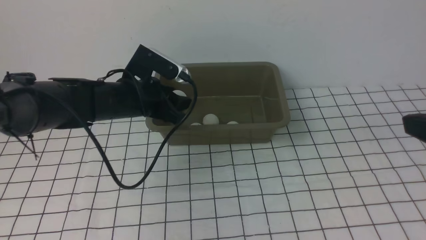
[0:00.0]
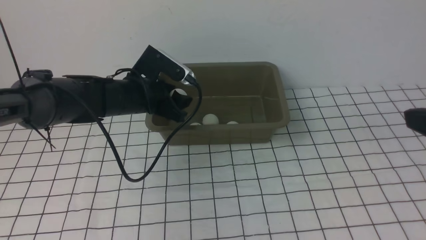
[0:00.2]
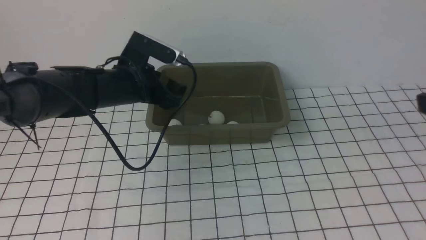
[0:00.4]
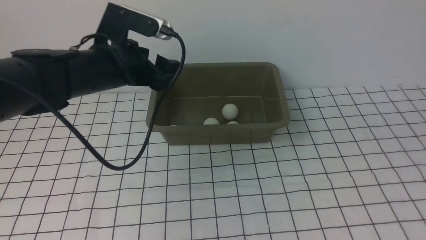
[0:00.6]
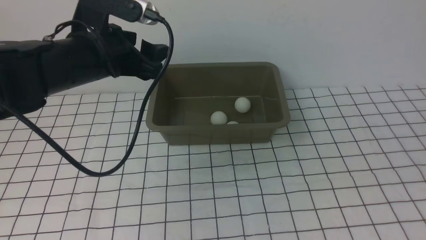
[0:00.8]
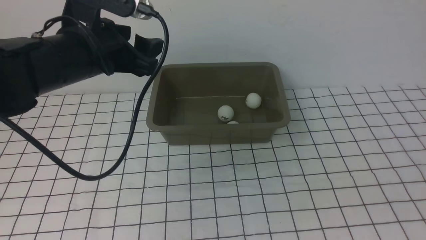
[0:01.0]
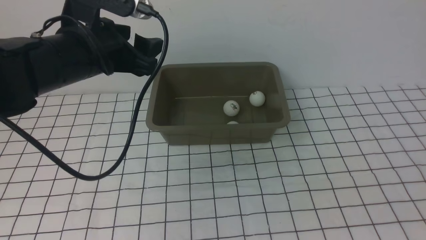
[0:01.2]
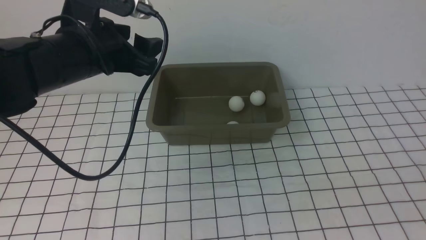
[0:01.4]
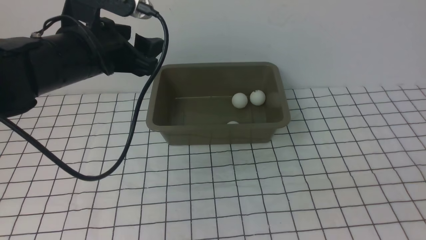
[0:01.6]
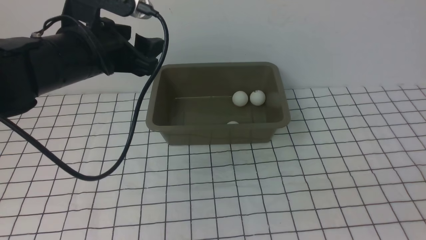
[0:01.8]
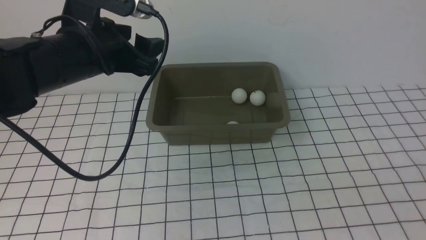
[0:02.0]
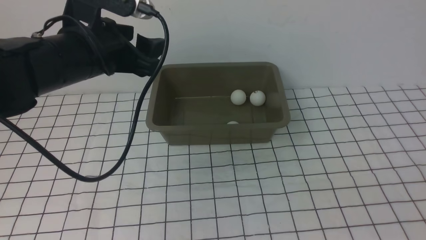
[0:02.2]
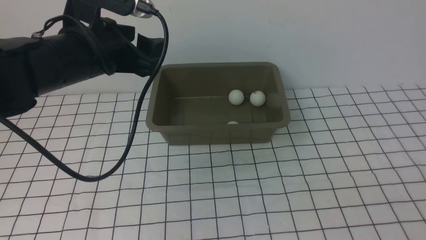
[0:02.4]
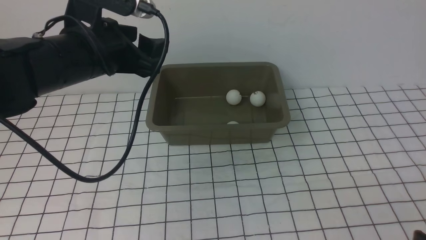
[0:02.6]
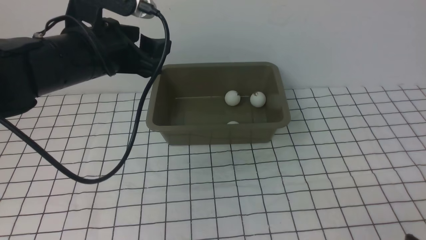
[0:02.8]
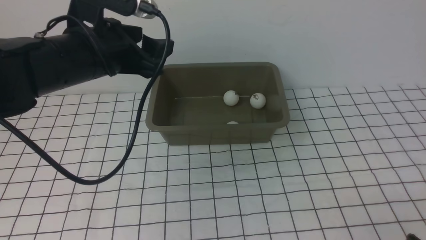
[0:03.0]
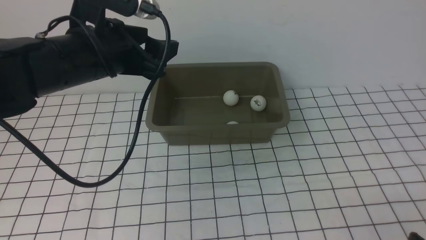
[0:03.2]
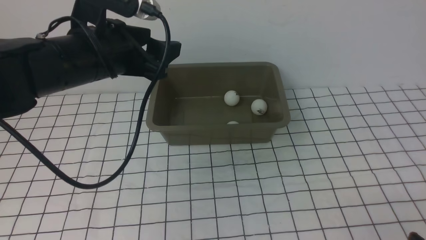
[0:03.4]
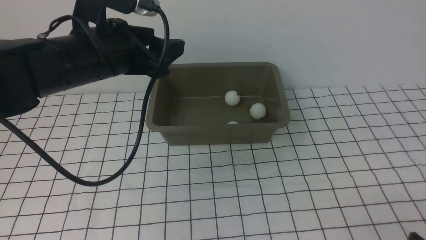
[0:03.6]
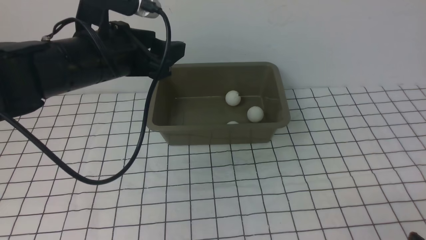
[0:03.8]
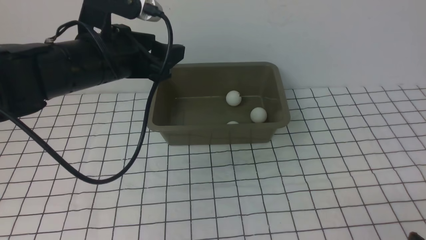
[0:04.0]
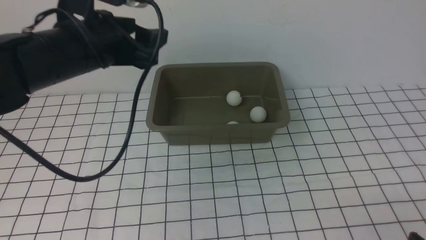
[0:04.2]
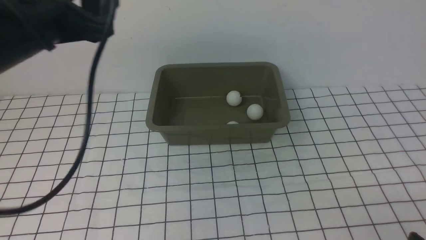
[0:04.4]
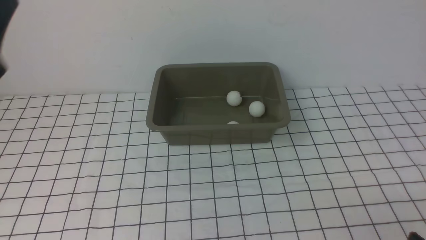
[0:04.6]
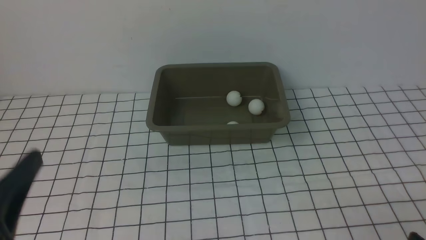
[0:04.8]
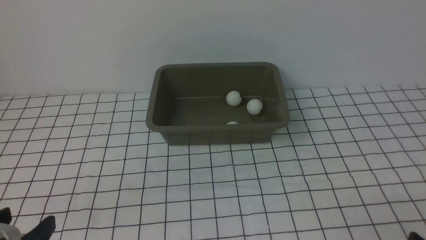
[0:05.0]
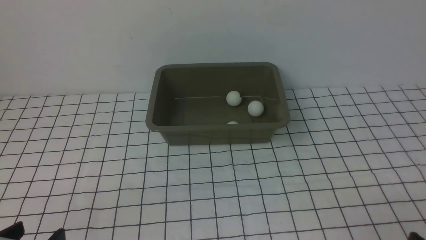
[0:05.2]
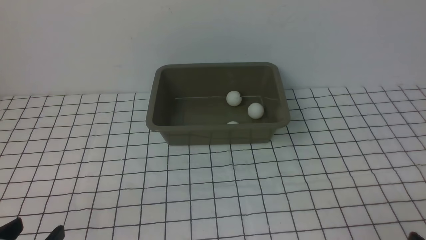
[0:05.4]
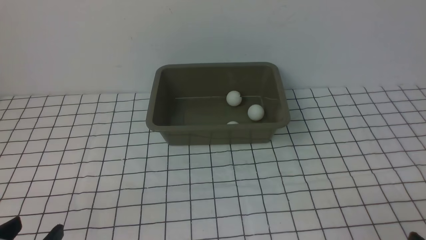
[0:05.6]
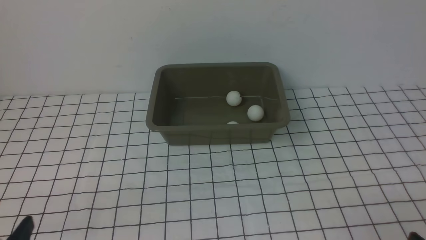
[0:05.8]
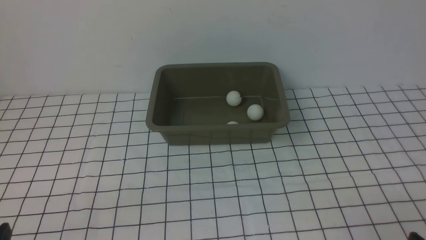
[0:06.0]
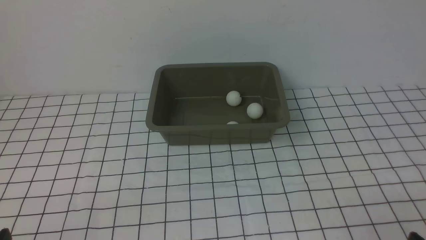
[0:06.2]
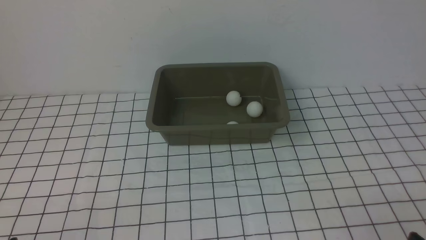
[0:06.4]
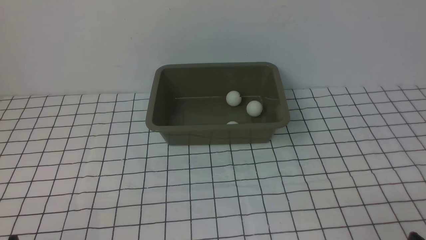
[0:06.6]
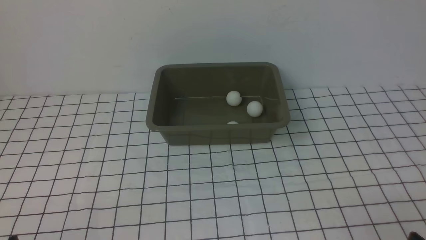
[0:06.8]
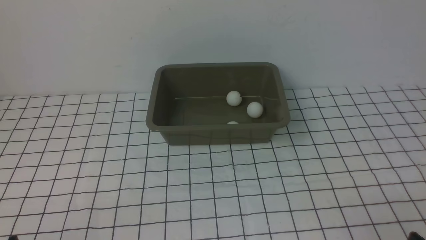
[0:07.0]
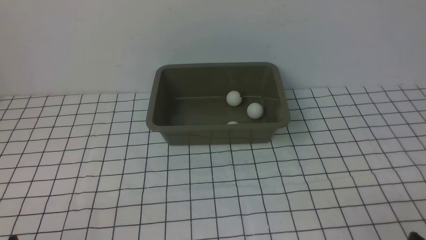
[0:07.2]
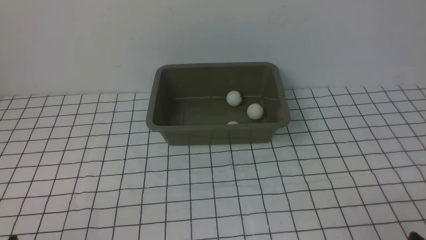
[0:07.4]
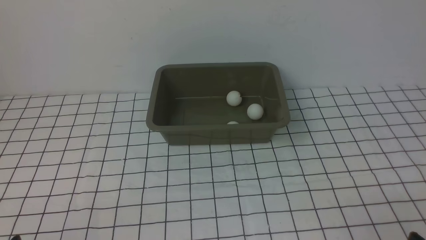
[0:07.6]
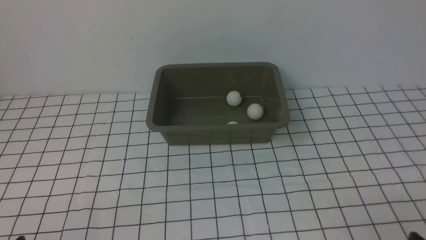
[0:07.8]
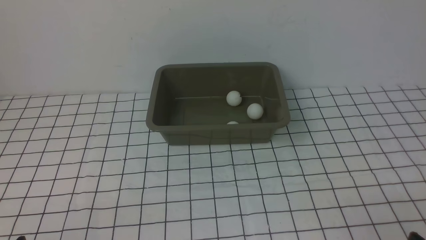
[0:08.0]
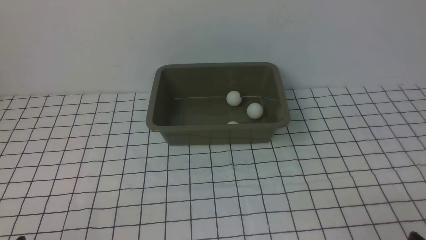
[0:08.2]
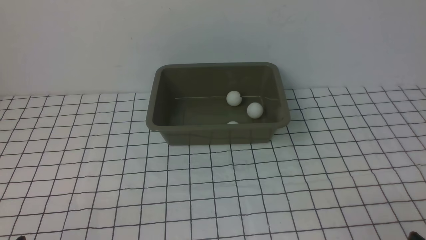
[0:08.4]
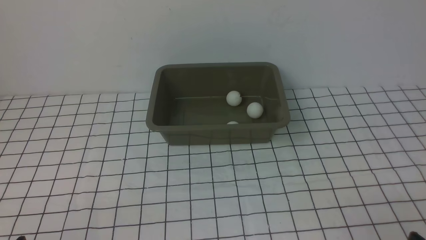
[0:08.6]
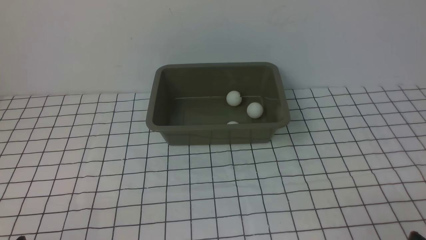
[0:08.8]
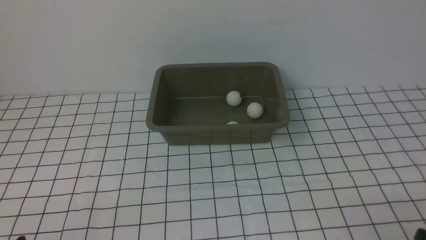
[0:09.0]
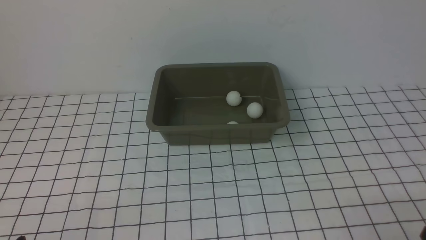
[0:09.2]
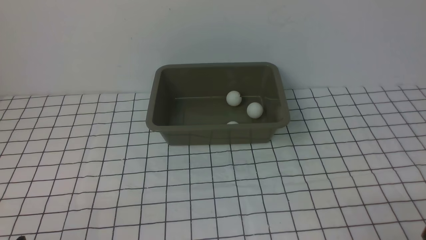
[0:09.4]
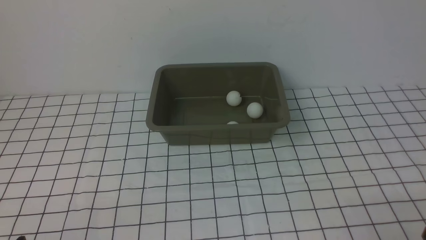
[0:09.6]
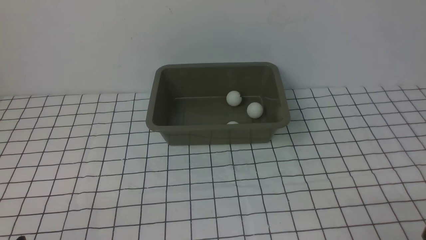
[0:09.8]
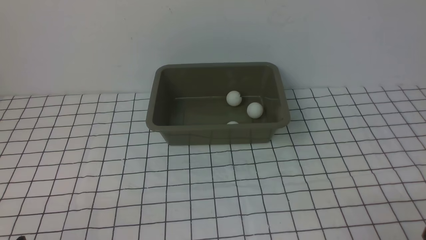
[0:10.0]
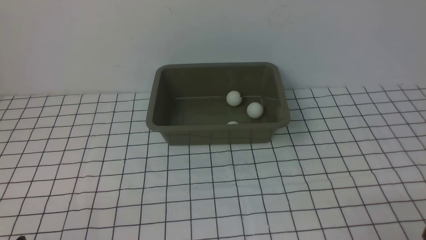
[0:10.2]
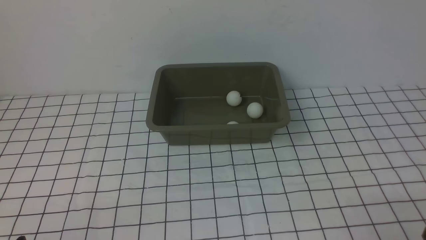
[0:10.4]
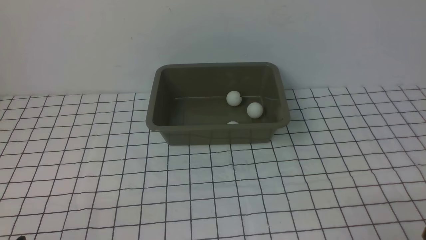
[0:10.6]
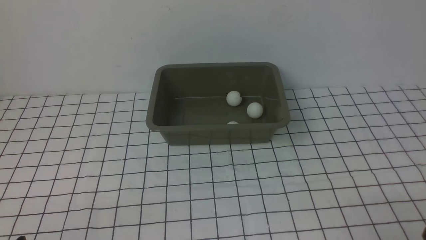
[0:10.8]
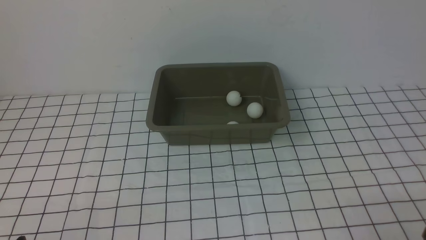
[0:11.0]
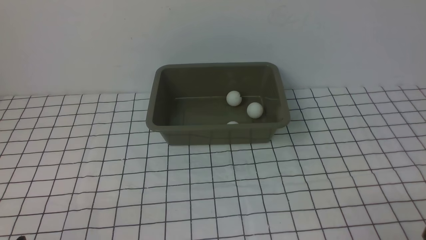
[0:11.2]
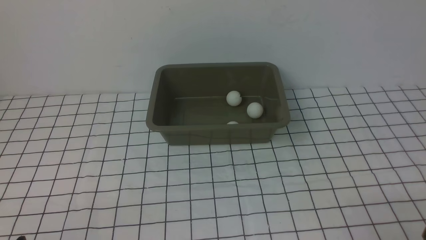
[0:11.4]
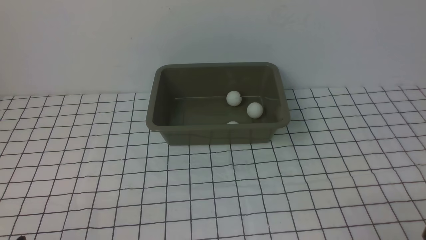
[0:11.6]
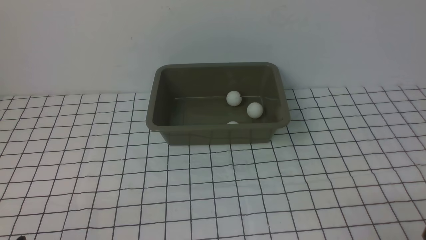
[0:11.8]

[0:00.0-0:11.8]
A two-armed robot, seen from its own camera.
Step, 0:00.0 to 0:00.4: use the left arm to put the table tennis ball into the box.
0:00.0 to 0:01.4: The left gripper moves upward and backward, approximately 10 cm, while the right gripper heads downward and backward, covering some 15 cm, and closes up.
0:01.4 to 0:03.0: The right gripper moves downward, about 10 cm.
0:03.0 to 0:04.4: The left gripper moves backward and downward, approximately 30 cm.
0:04.4 to 0:06.0: The grippers move only a little.
0:06.0 to 0:07.4: The two grippers keep their place.
0:08.8 to 0:11.8: The two grippers keep their place.
